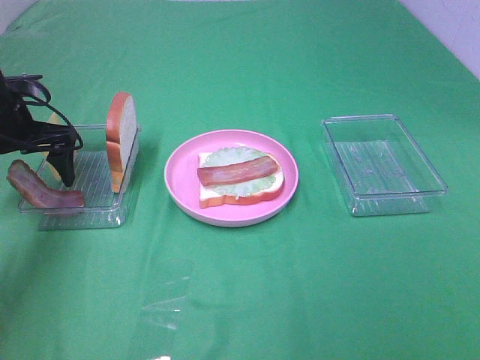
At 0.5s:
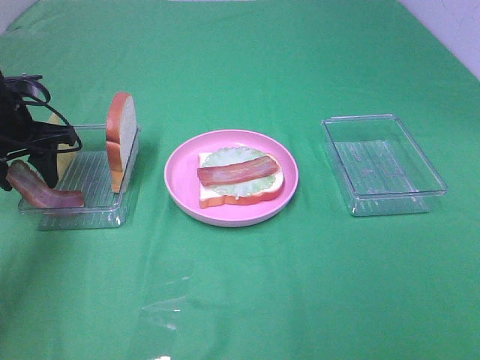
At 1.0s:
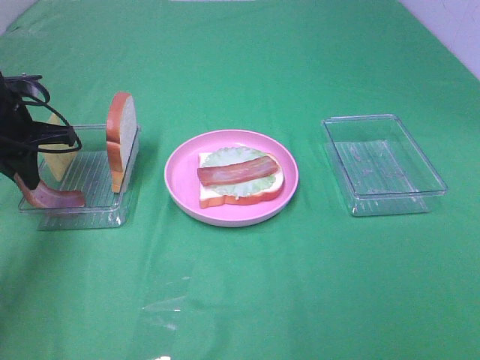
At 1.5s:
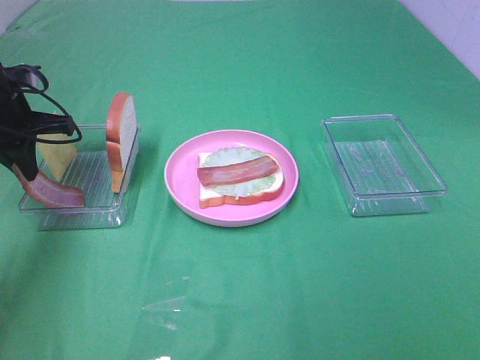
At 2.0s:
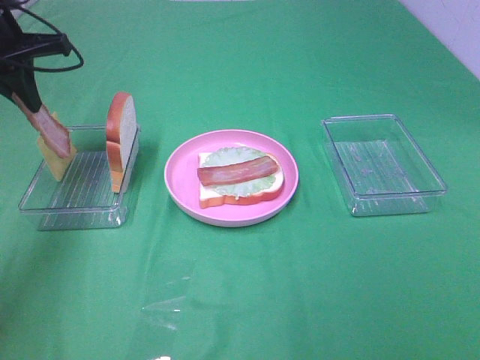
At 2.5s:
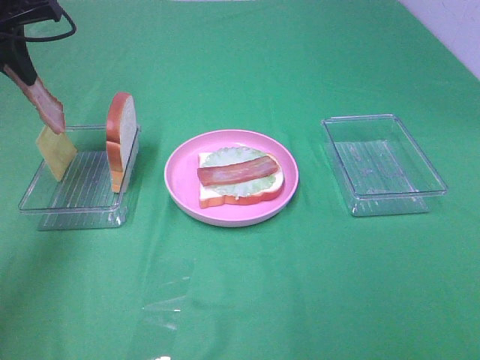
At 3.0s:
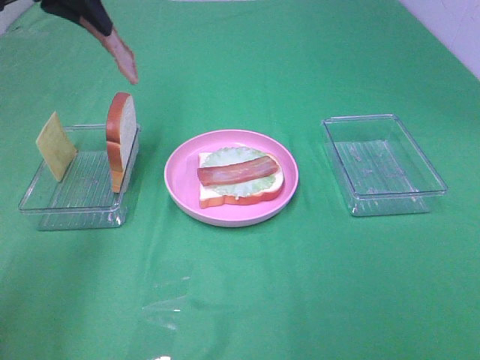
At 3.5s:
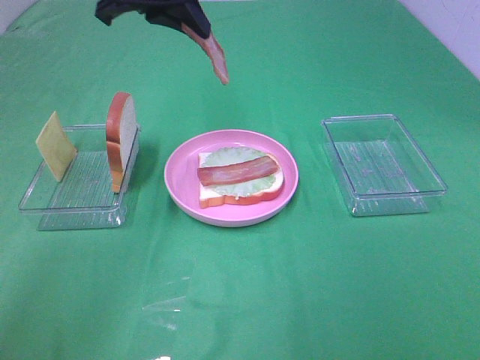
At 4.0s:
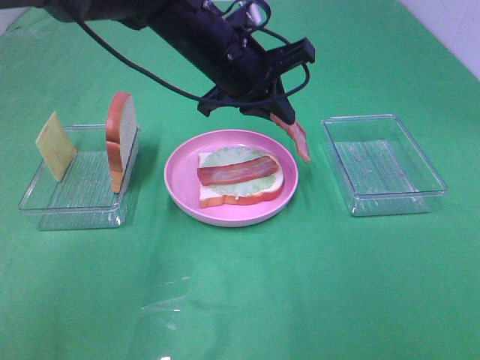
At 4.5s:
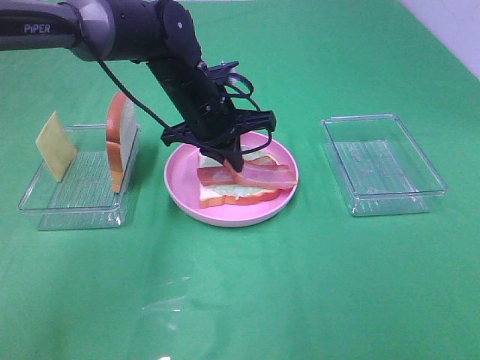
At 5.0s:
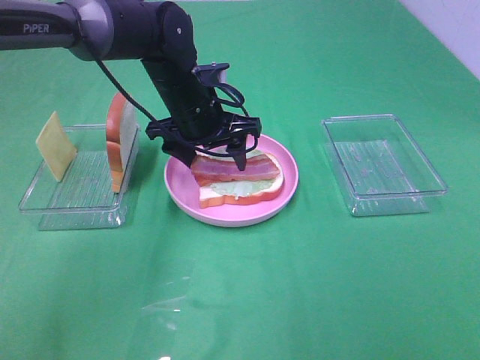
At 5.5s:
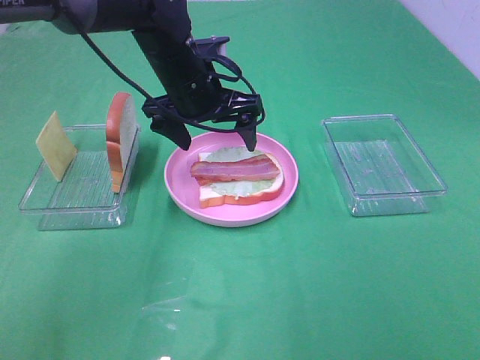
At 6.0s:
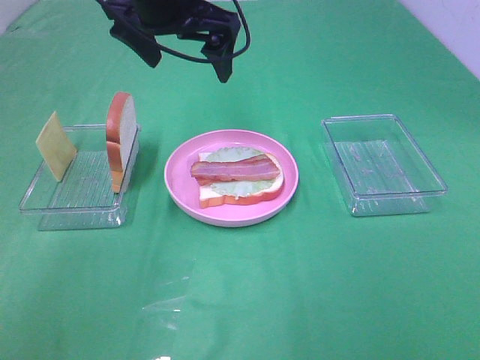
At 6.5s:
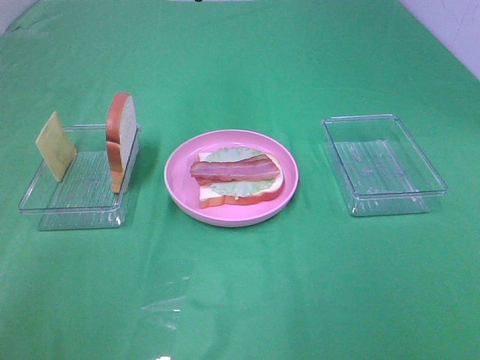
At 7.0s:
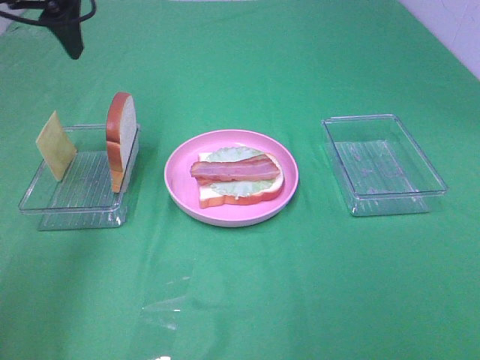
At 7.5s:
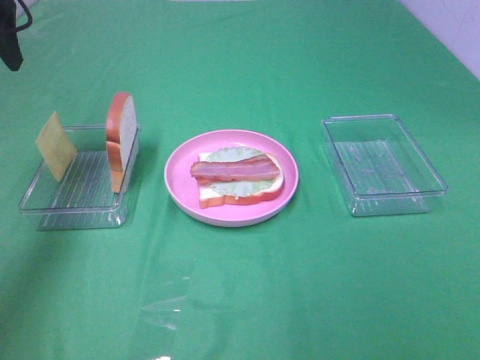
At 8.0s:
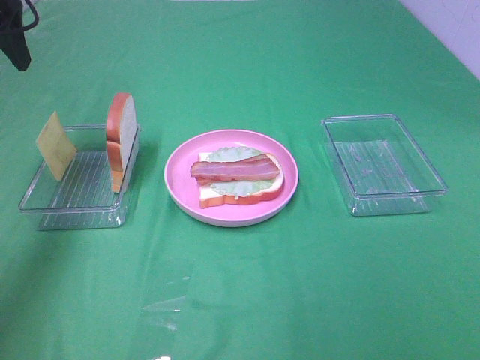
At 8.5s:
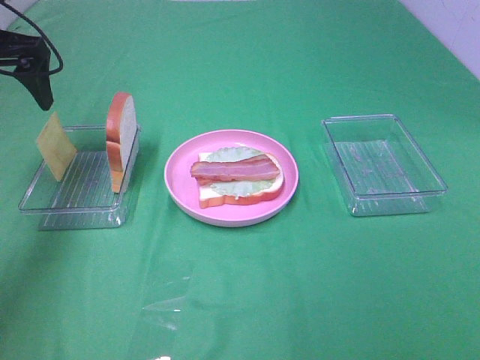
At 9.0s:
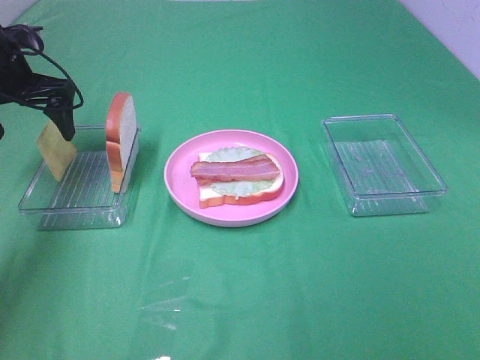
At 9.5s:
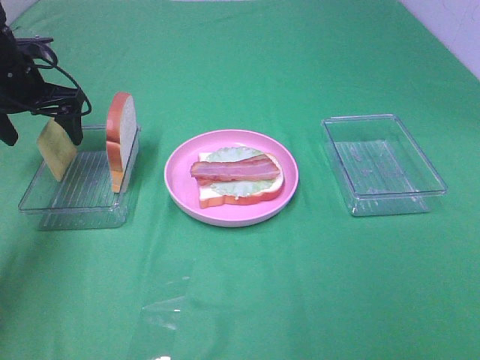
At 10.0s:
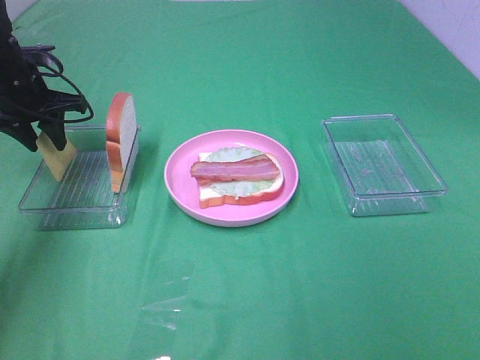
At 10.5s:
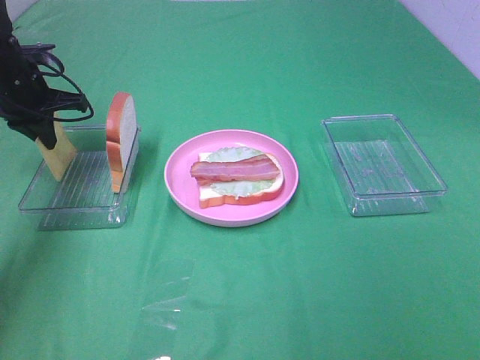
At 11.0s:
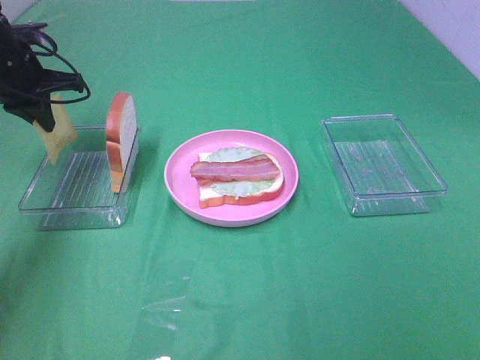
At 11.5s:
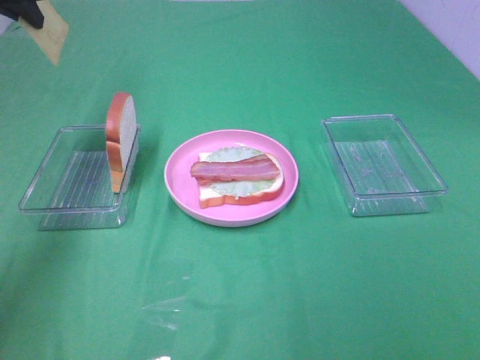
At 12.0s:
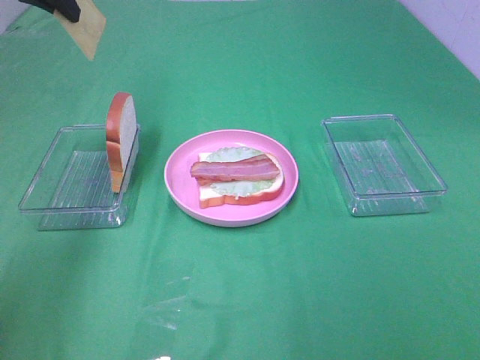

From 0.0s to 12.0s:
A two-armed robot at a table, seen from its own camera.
Task of the whole recording: Make sandwiches.
Step, from 1.5s to 5.0s: Left hand:place bacon on bacon.
Step, from 5.5s to 10.5s: Left hand:grab the cheese slice.
From 0.0s to 2.0s: The left gripper moves upward, about 10 cm, and closes its fingers.
From 2.0s to 4.0s: The left gripper travels to the right by some 25 cm.
From 4.0s to 6.0s: The left gripper goes roughly 10 cm upward and to the left, and opens.
From 6.0s to 8.0s: The left gripper goes approximately 20 cm to the left.
From 8.0s to 10.0s: The left gripper moves downward and forward, roughly 20 cm, and closes its fingers.
From 10.0s to 12.0s: The left gripper travels upward by about 15 cm, and closes up.

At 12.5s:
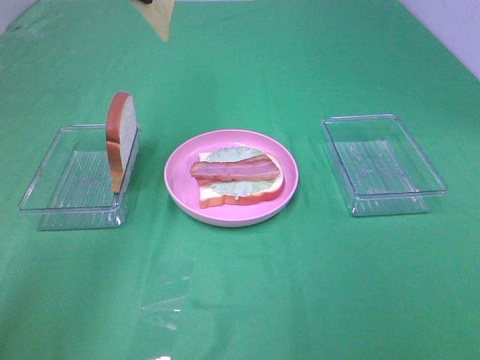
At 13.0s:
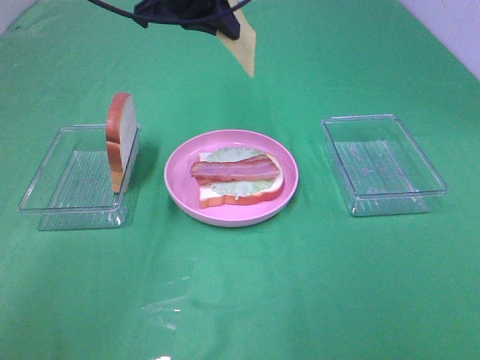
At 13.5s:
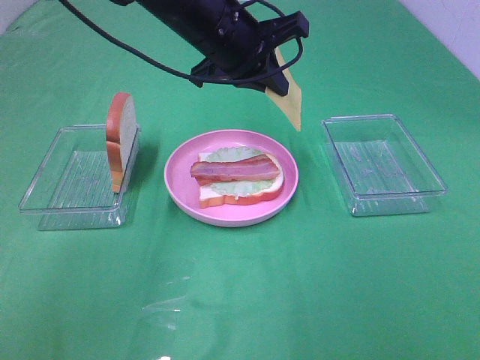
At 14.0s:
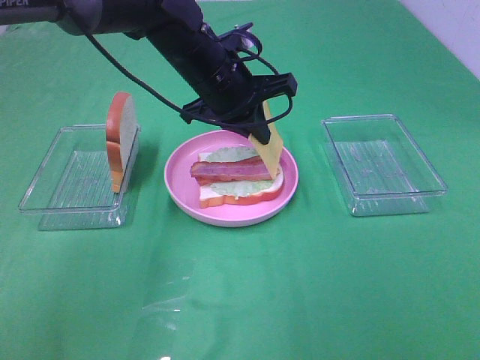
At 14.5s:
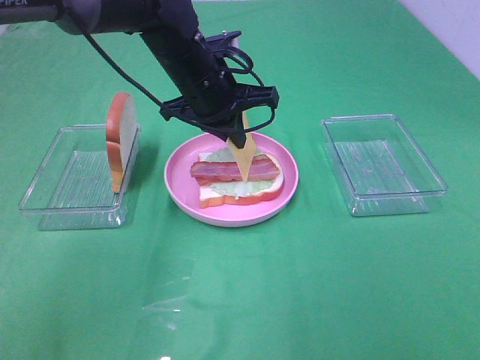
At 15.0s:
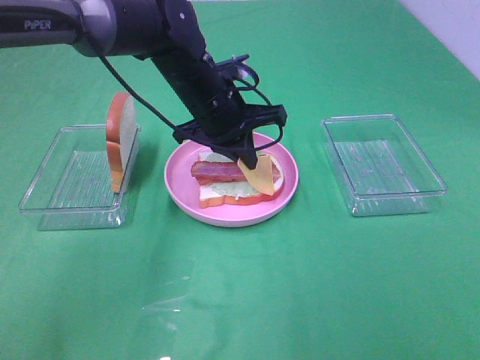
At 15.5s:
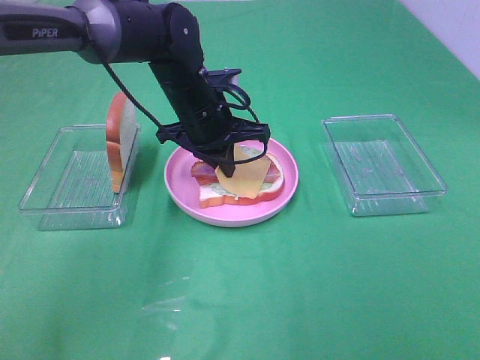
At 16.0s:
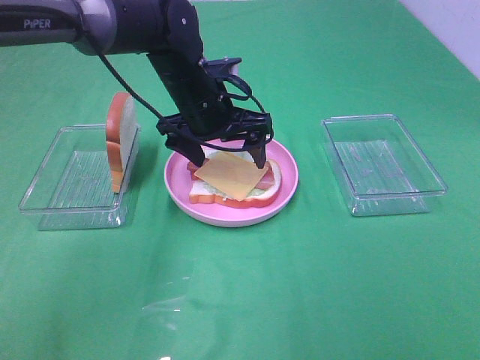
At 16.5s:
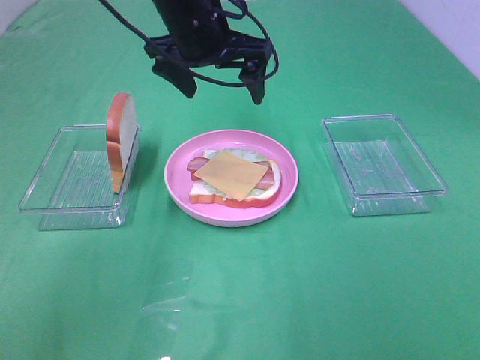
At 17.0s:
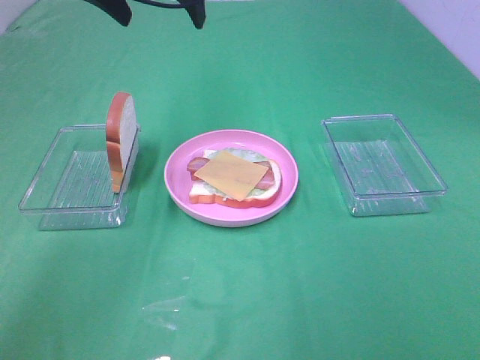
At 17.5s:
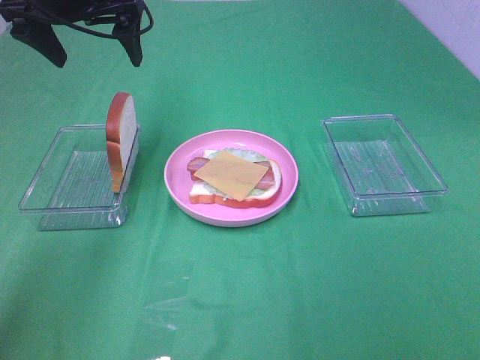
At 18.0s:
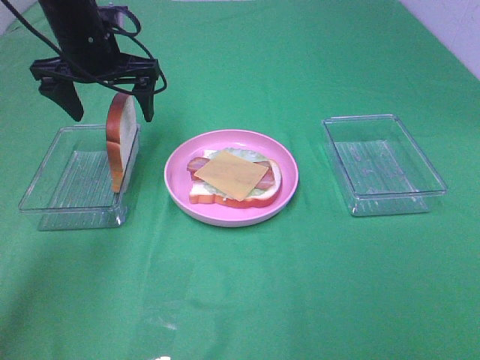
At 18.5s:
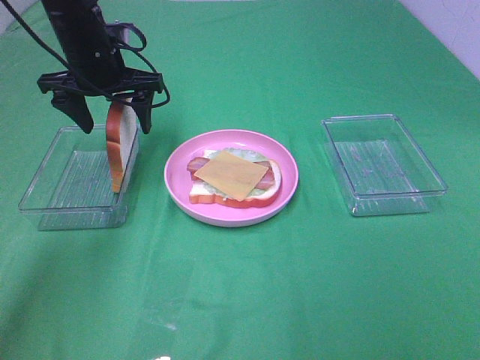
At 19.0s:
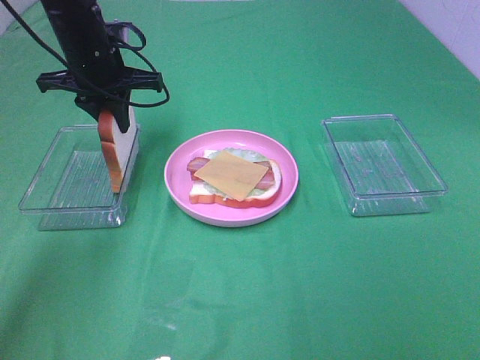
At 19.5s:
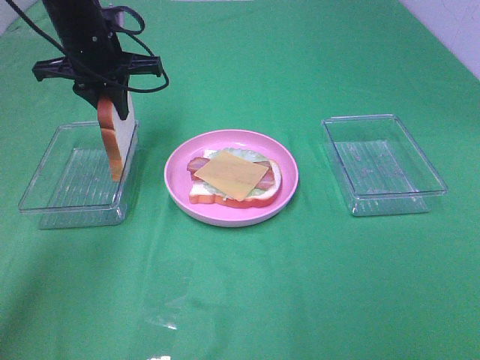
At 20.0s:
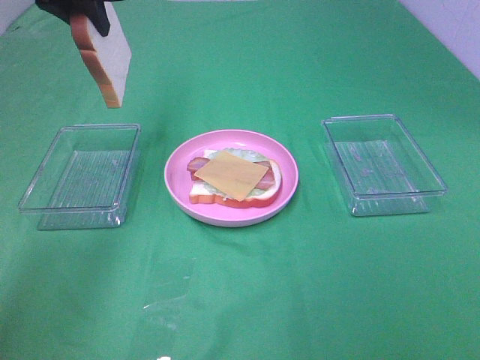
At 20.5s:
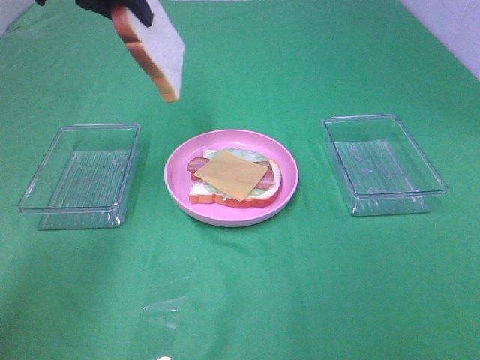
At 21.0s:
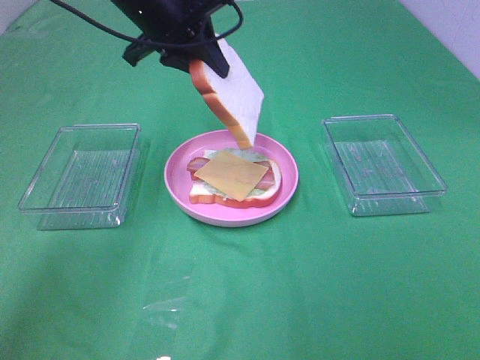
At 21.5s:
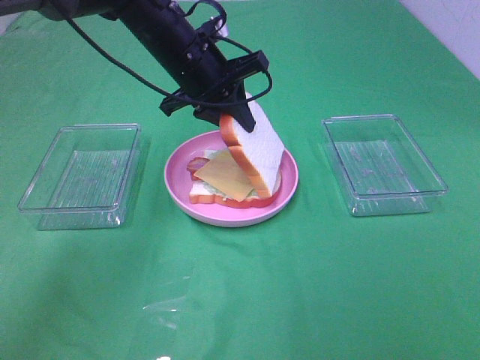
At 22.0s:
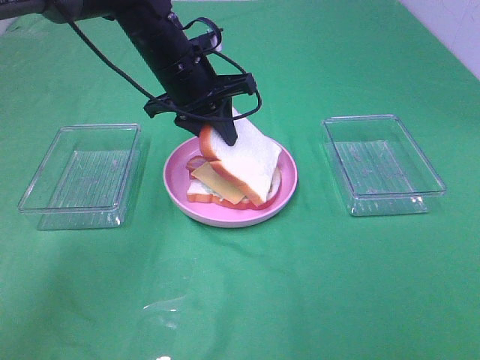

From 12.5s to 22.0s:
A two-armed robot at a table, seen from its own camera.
Task of the whole recording: Make sandwiches.
Step, from 12.5s to 16.0s: Left hand:place the cheese slice on top of the bacon.
Step, from 16.5s to 18.5s: Left hand:grab the bread slice.
From 12.5s to 14.5s: The left gripper goes some 20 cm downward and to the right.
From 14.5s to 16.5s: The left gripper heads upward, covering some 5 cm, and opens up.
From 16.5s to 18.0s: The left gripper heads to the left, covering some 15 cm.
From 18.0s to 20.0s: The left gripper travels upward by roughly 10 cm, and closes its fingers.
From 20.0s to 22.0s: The left gripper shifts roughly 20 cm downward and to the right.

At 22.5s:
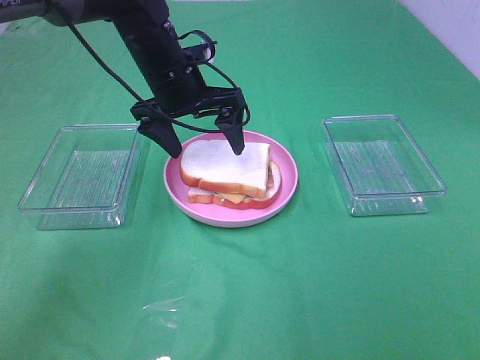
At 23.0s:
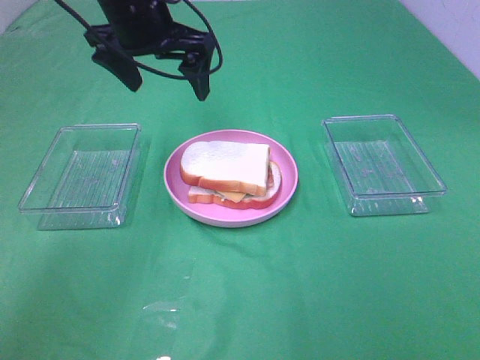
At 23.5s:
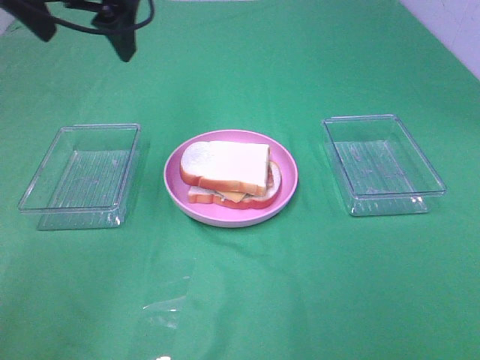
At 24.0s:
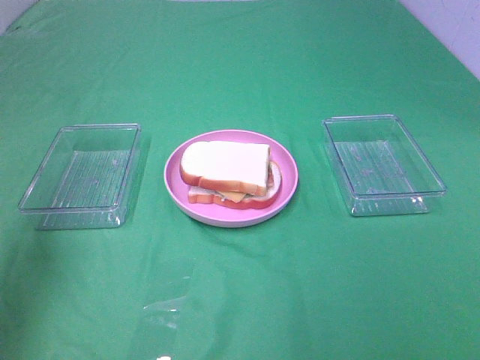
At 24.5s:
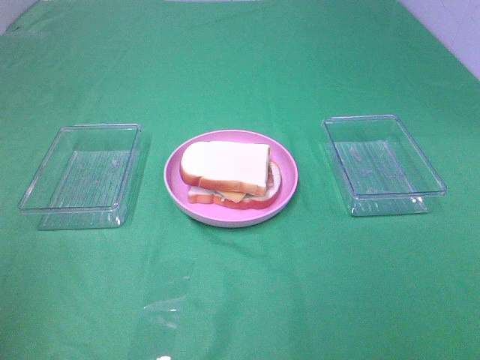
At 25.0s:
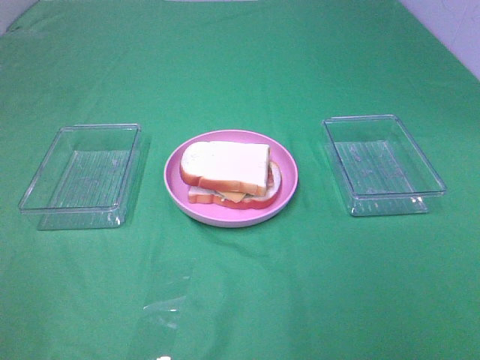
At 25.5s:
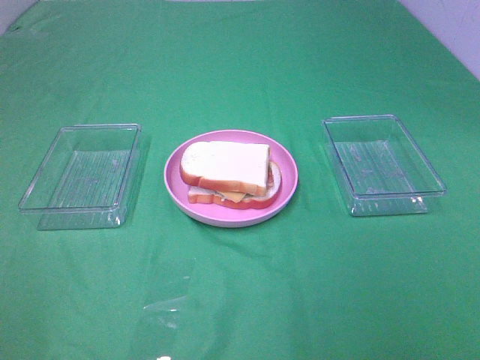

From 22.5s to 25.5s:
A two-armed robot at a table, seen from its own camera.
Task of the whole recording: Make sandwiches.
From 22.5s to 24.0s: The left gripper heads to the left, backward and upward, covering some 35 cm.
From 24.0s to 25.5s: The left gripper goes approximately 25 cm backward.

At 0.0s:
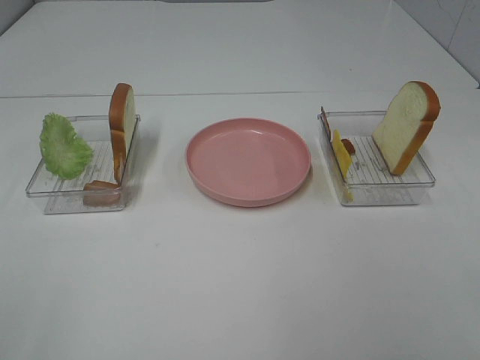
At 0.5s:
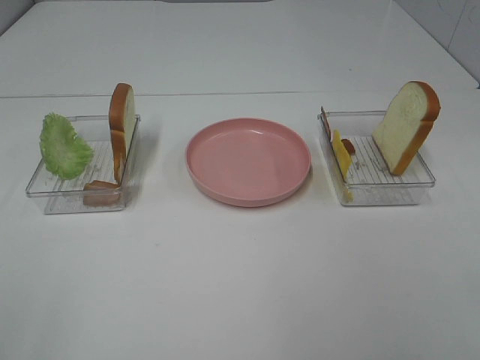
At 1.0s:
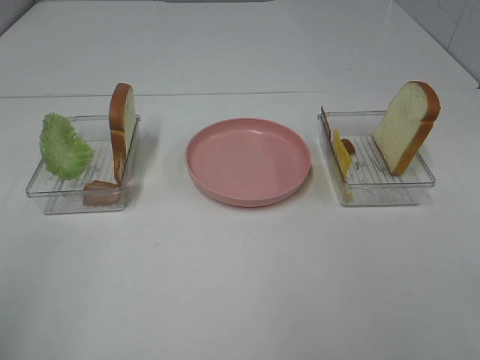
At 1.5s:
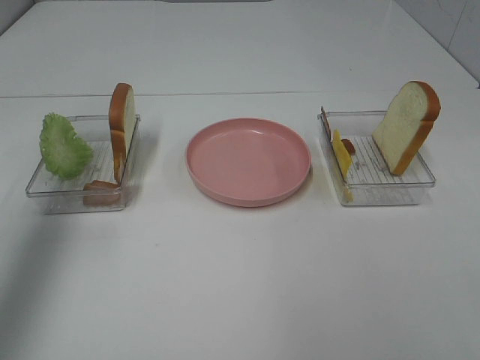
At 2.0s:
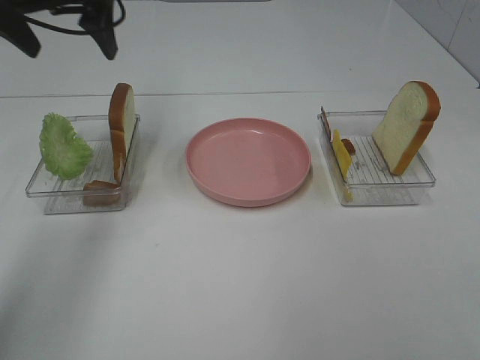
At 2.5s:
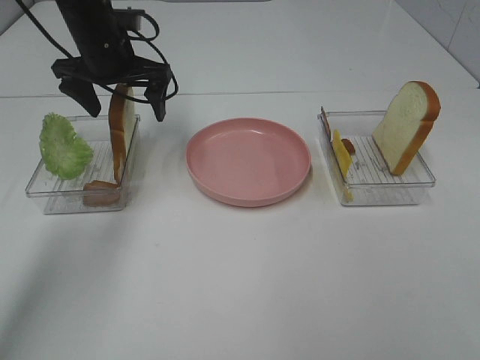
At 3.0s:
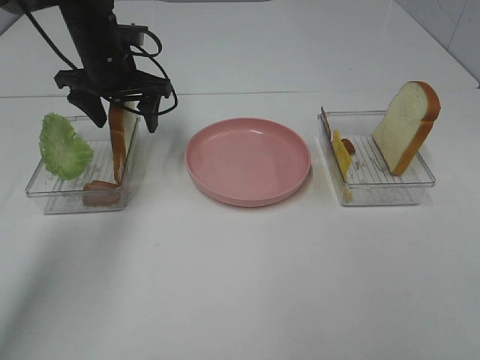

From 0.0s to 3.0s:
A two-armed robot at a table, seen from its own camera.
Task of the whole recording: Make sandwiches.
From 0.0s to 1.5s: The left gripper heads forward, covering about 30 cm.
From 1.5s to 3.0s: The left gripper shifts some 30 cm downward, forward and to the right.
